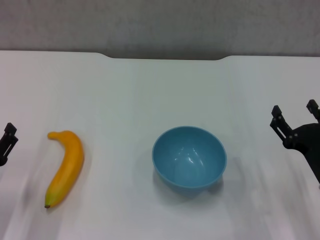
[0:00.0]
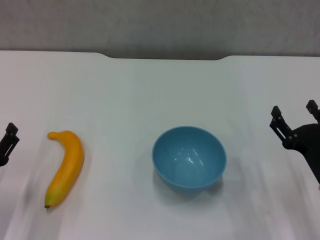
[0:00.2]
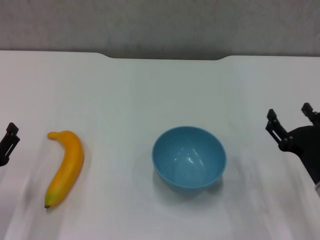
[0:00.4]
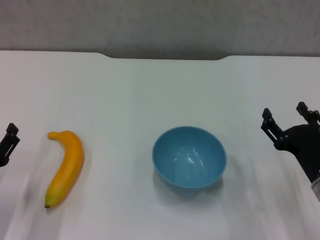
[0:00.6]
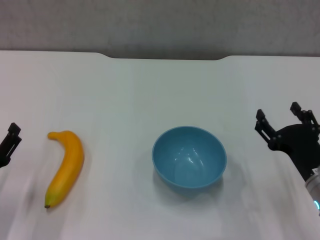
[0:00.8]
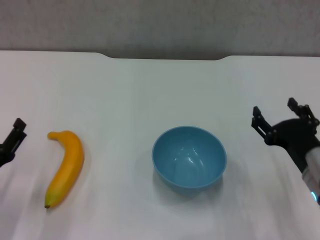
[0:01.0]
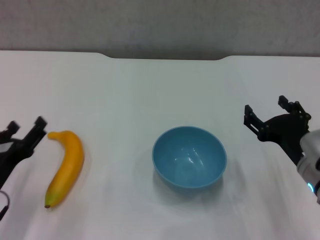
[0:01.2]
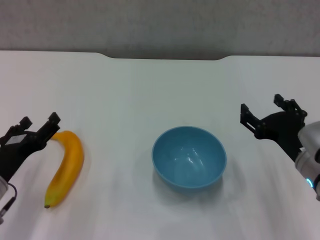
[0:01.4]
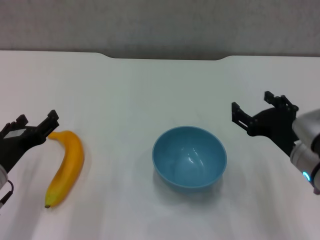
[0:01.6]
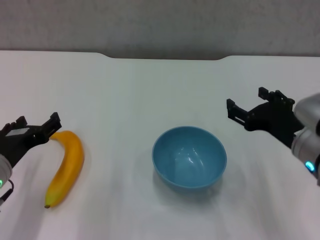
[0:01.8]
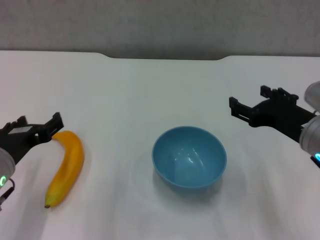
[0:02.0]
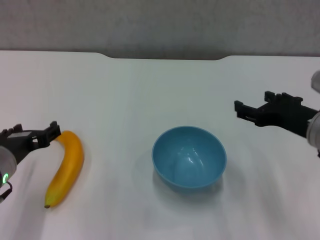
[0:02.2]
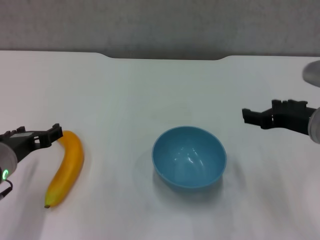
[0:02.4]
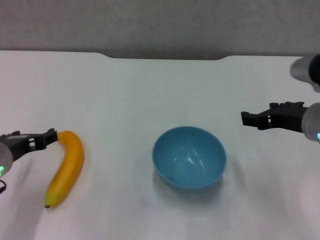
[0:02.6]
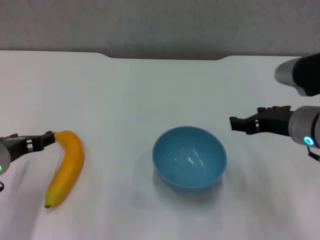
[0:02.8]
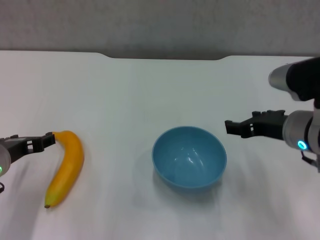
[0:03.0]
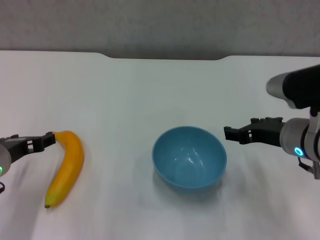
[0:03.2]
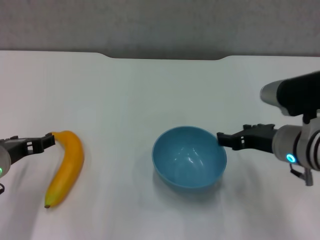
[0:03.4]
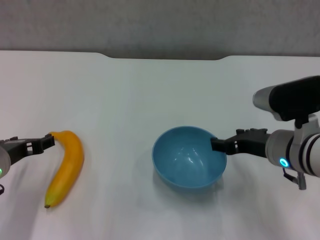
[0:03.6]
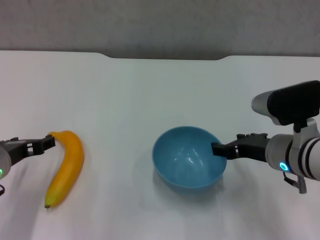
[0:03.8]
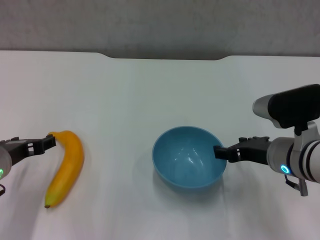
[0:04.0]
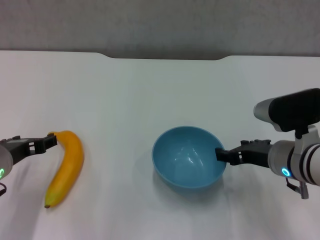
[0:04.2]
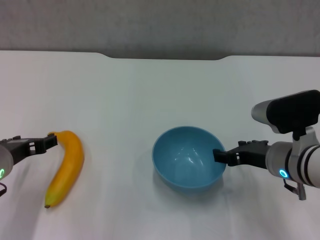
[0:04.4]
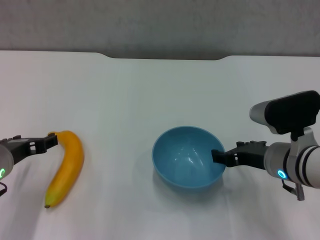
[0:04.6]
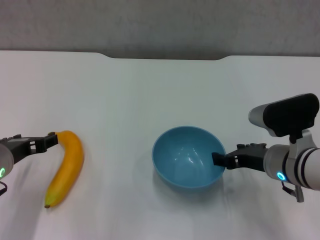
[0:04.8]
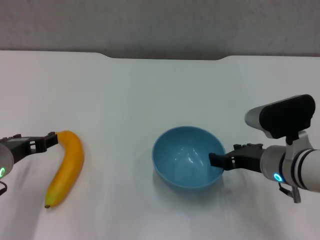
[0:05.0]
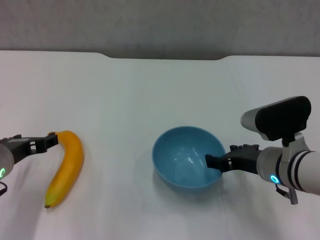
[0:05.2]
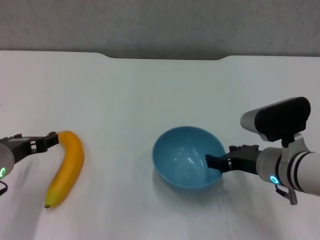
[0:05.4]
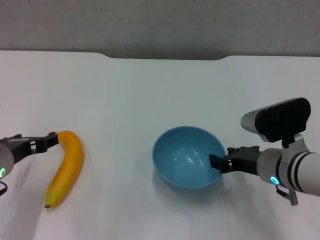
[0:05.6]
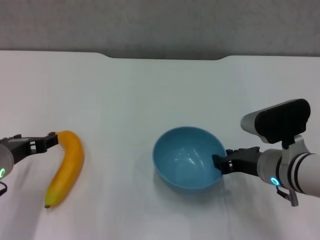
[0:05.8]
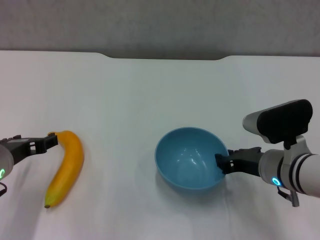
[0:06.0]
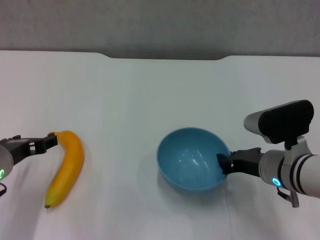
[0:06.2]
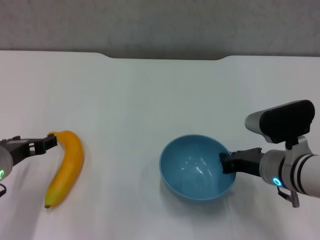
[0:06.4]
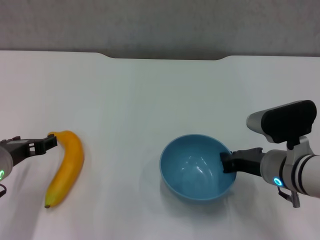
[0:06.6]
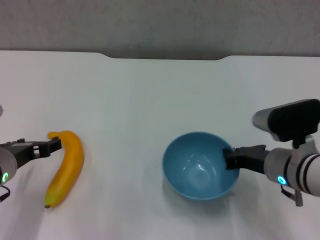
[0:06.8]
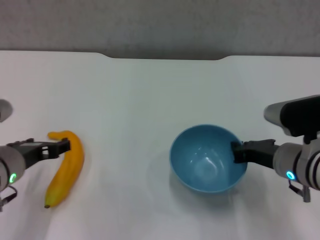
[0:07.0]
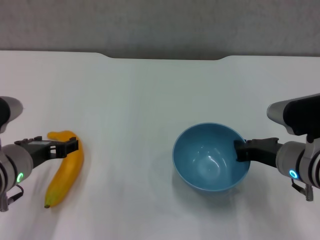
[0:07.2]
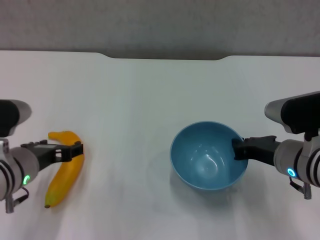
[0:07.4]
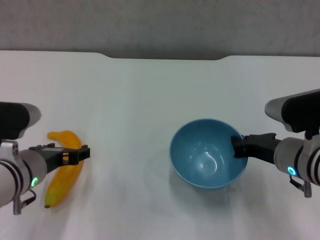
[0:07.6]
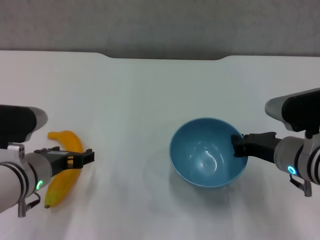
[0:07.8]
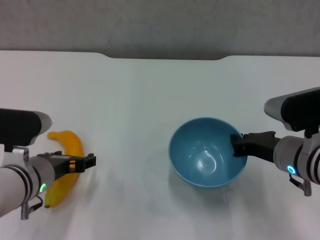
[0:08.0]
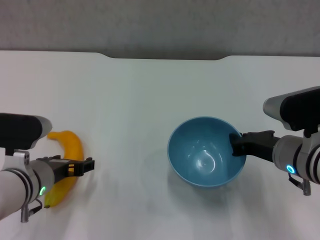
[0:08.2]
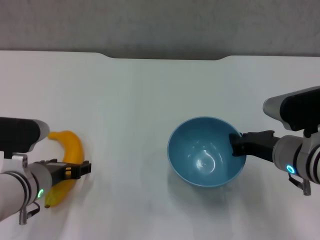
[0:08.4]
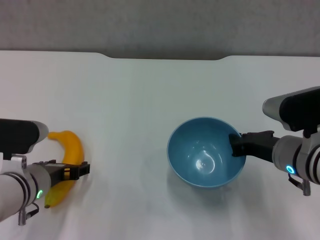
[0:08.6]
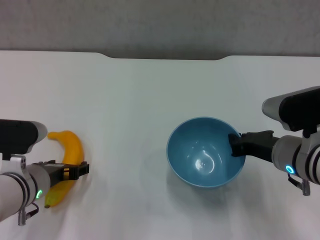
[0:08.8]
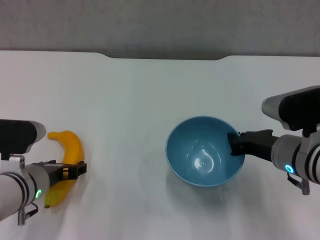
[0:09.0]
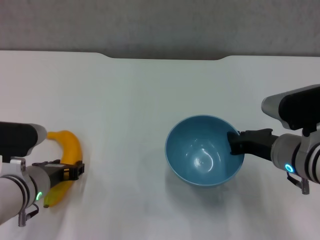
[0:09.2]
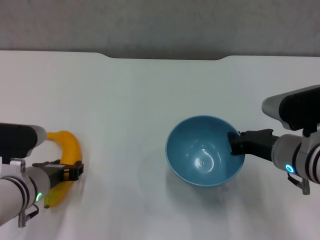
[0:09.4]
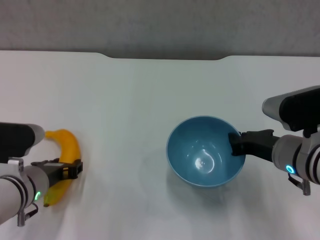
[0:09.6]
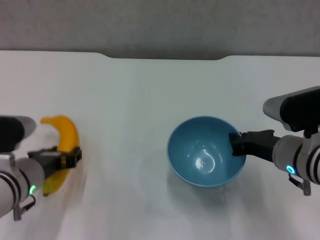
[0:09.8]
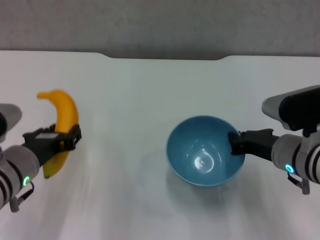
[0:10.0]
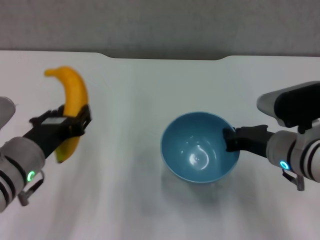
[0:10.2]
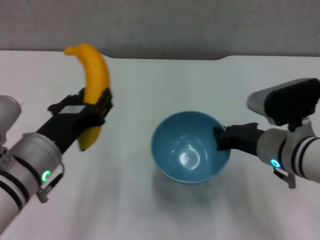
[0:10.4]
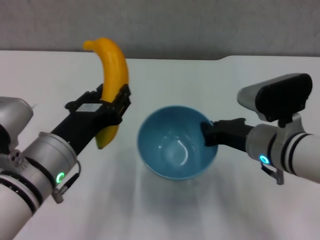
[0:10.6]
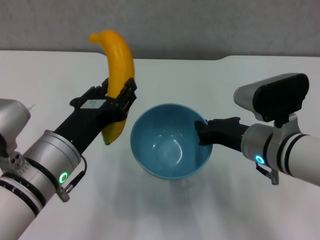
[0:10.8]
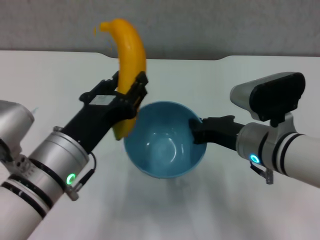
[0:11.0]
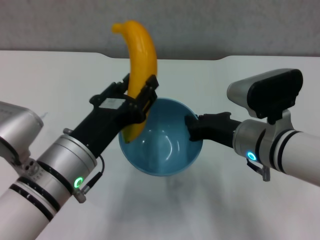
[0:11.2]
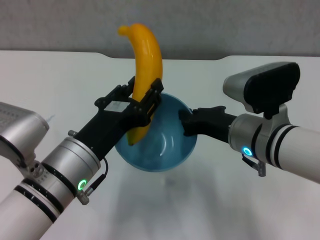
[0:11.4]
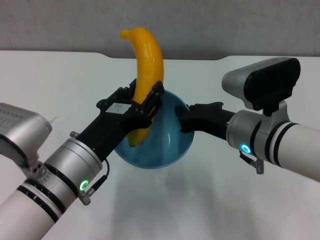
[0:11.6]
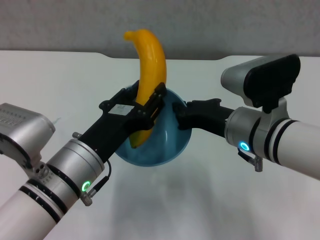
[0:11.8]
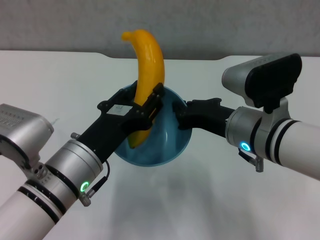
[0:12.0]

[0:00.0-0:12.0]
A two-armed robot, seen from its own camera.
Step, 0:00.0 to 0:06.4: Grasp the blue bowl with right gripper.
Step, 0:06.6 to 0:07.2: Lift the blue bowl with right gripper.
Step, 0:07.6 to 0:09.4: Grasp the banana with left gripper.
0:00.0 to 0:01.6: Both grippers travel together upward, some 5 cm.
0:01.6 to 0:03.0: The right gripper moves about 5 cm.
0:03.0 to 0:04.4: The right gripper moves downward, roughly 5 cm.
0:04.4 to 0:06.0: The right gripper closes its fingers.
0:06.0 to 0:07.6: The right gripper closes its fingers.
0:07.6 to 0:09.0: There are only small adjustments of the grippers.
0:09.0 to 0:10.4: The left gripper goes some 10 cm upward, and closes up.
0:10.4 to 0:12.0: The right gripper shifts by approximately 5 cm.

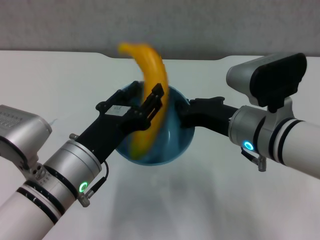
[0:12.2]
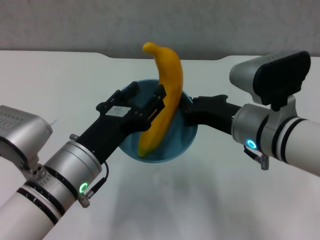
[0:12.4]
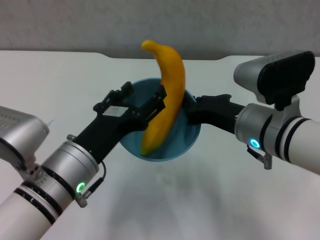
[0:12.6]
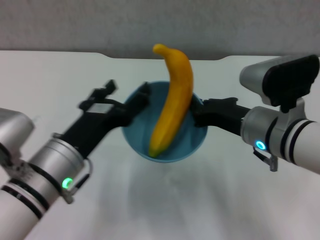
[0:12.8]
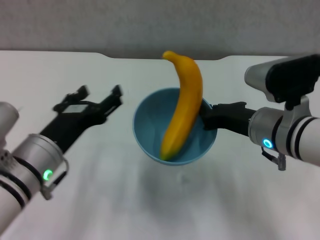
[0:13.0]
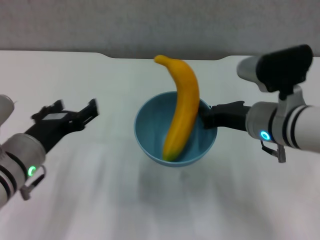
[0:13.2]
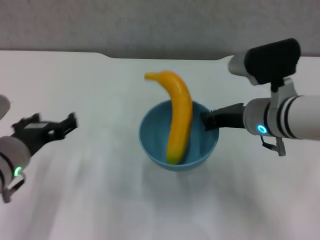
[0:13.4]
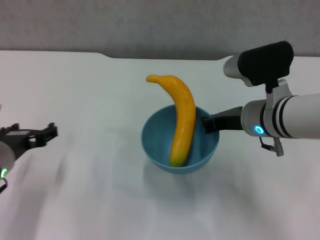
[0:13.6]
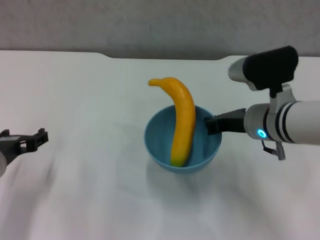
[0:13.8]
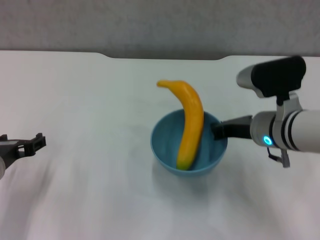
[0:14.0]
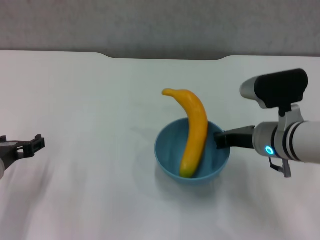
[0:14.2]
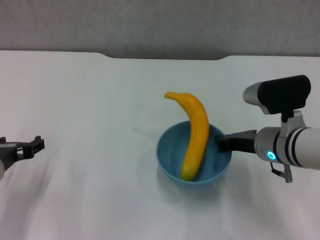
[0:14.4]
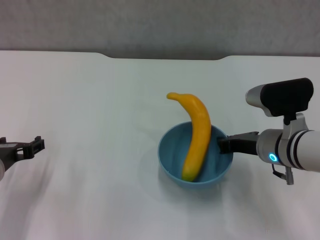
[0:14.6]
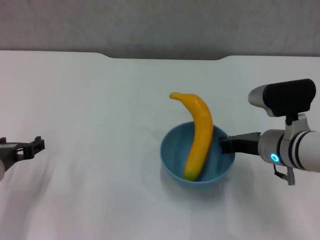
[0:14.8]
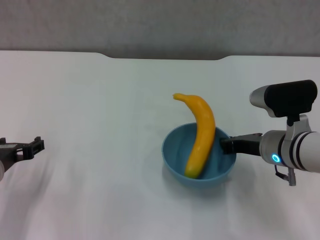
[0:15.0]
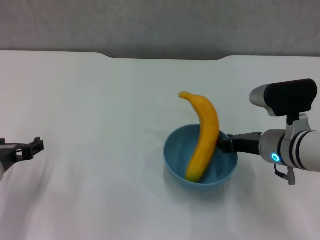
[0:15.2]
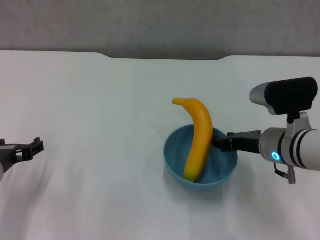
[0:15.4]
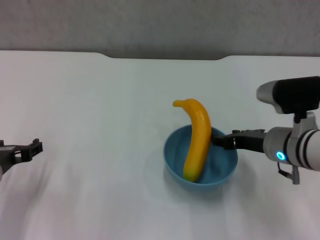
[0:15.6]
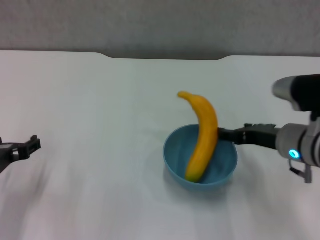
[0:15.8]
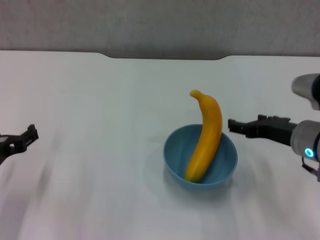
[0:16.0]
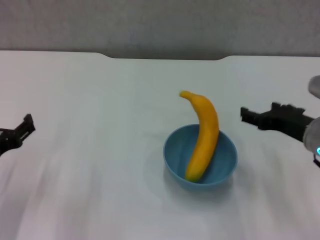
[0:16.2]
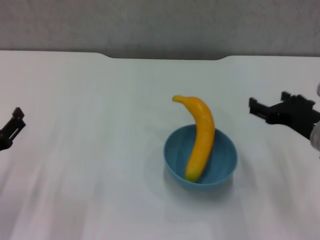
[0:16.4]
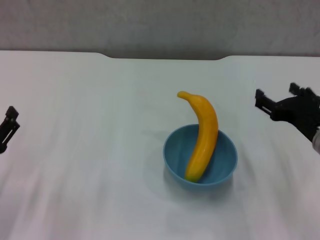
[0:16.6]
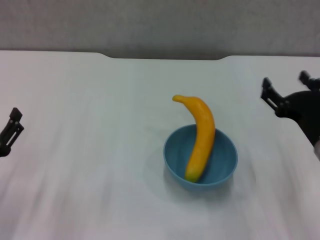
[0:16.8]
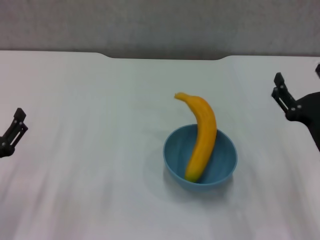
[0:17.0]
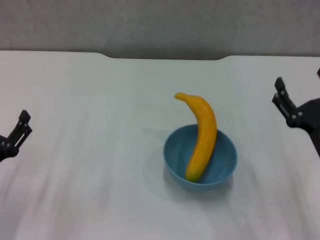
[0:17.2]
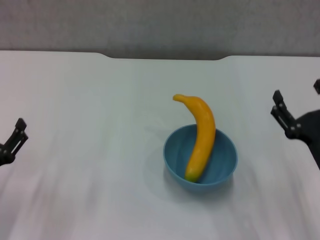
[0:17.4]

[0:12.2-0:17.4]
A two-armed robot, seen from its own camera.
Step, 0:12.6 to 0:15.8: Place the bowl on the table with right gripper.
0:12.2 to 0:14.0: The left gripper is displaced to the left by about 10 cm, and opens; the right gripper changes place by roughly 5 cm.
0:14.0 to 0:15.6: The right gripper opens its fingers.
0:15.6 to 0:17.4: The left gripper shifts about 10 cm backward and downward; the right gripper travels backward and to the right by roughly 10 cm, and opens its fingers.

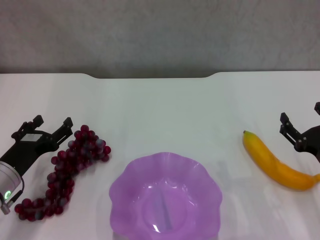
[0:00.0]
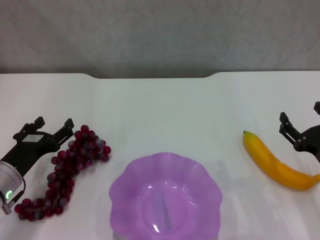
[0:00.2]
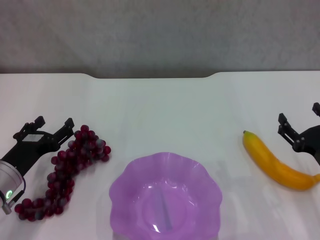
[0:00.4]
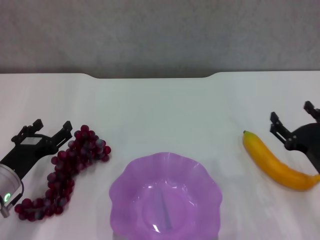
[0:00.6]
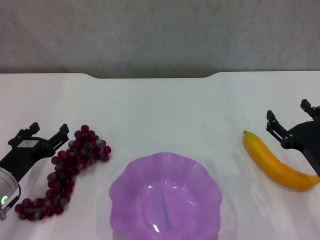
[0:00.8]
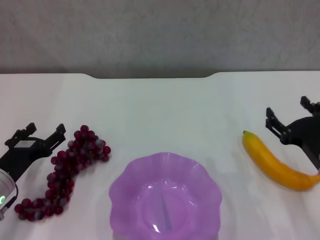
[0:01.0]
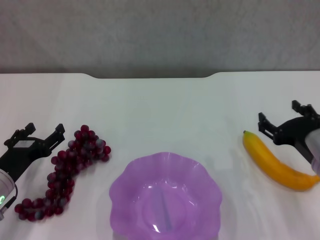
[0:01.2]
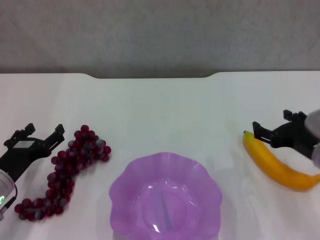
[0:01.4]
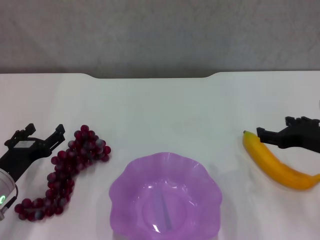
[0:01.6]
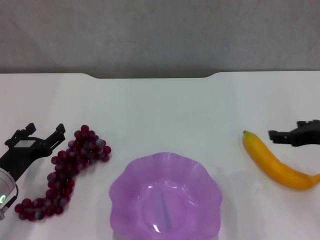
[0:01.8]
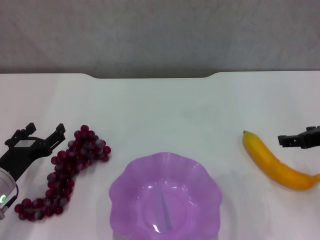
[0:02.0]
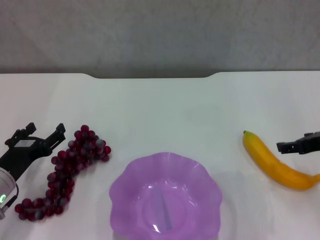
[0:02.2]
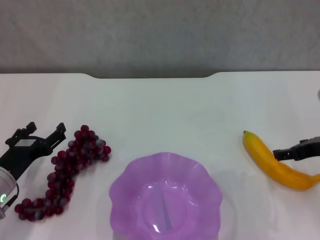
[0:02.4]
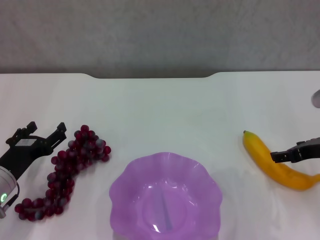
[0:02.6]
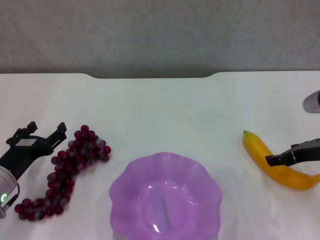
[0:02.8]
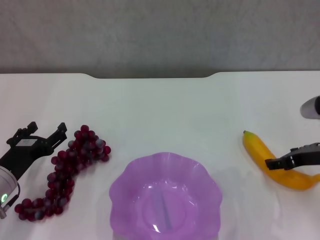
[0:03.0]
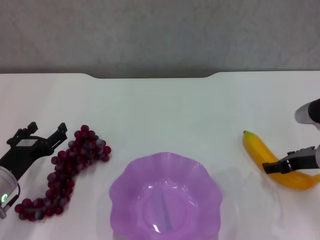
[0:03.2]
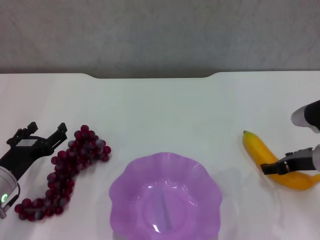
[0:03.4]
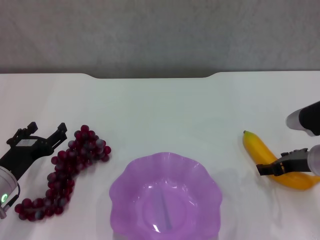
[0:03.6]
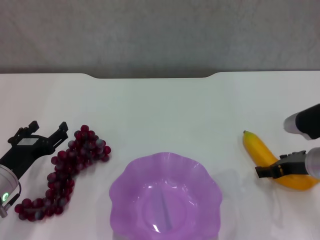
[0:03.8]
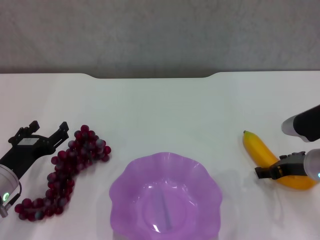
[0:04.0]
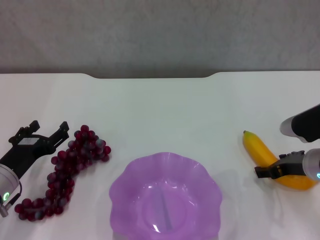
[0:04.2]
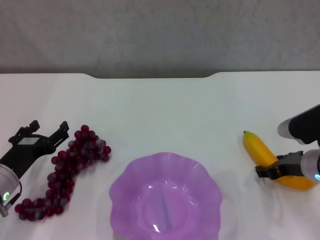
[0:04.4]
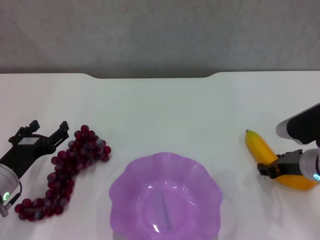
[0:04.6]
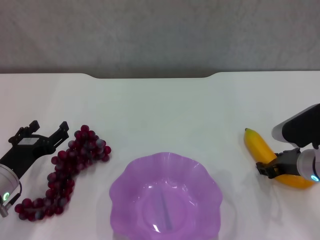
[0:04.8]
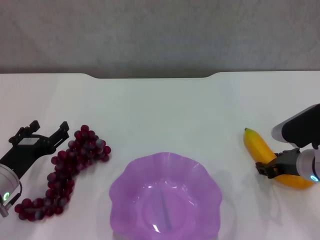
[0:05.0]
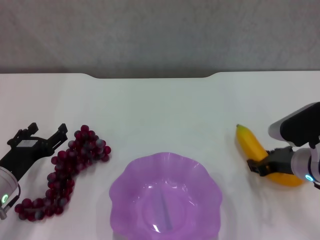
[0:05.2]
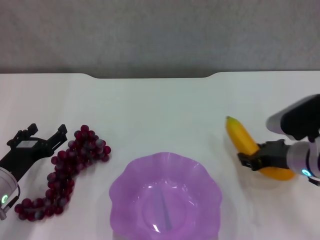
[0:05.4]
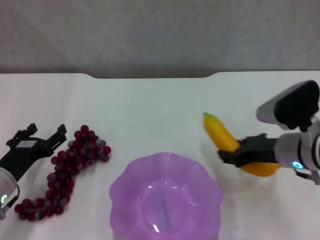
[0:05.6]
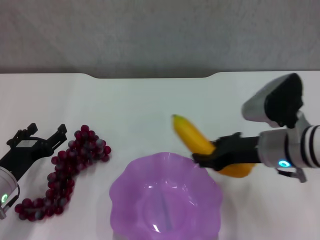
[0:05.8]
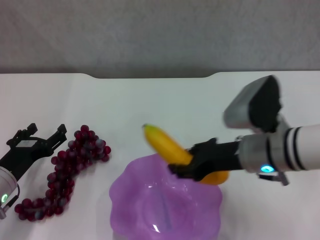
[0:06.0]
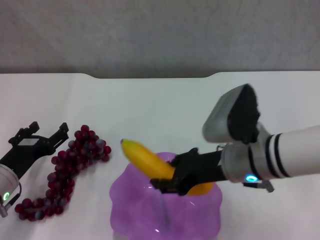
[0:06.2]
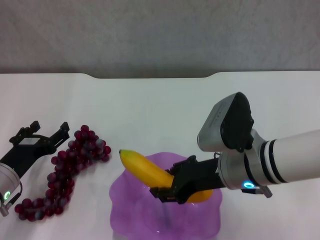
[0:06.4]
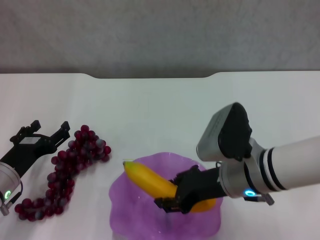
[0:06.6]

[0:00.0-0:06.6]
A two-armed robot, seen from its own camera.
Step, 0:00.0 to 0:05.0: Grasp the banana with right gripper.
0:00.0 to 0:01.6: The right gripper travels upward by roughly 10 cm.
0:01.6 to 0:03.2: The right gripper moves approximately 5 cm.
0:03.2 to 0:05.0: The right gripper closes.
0:05.0 to 0:06.6: The right gripper travels to the left and upward by roughly 15 cm.
